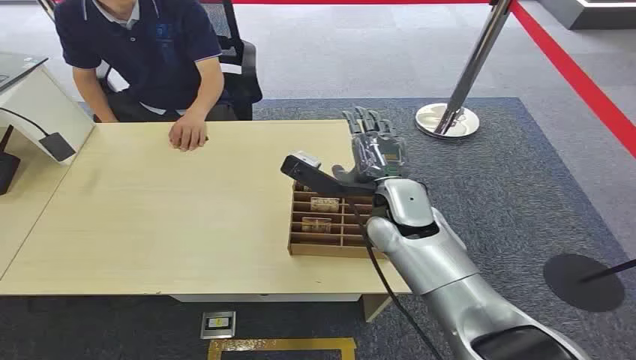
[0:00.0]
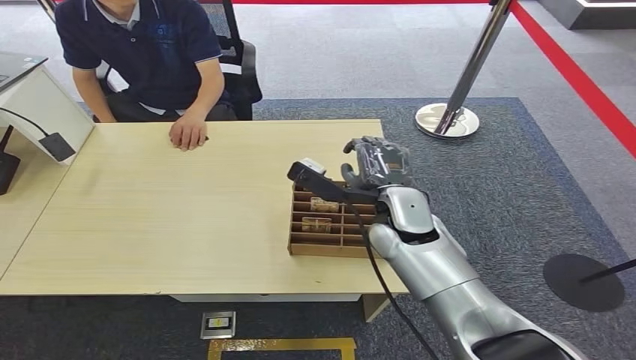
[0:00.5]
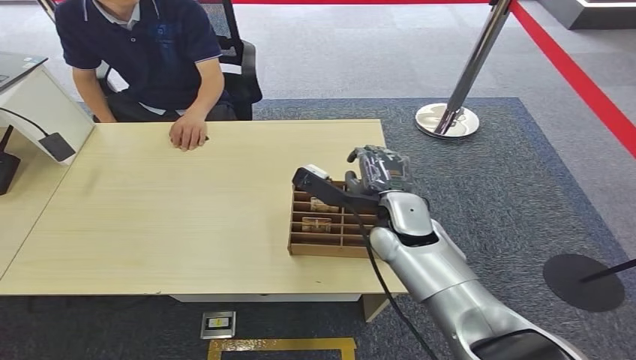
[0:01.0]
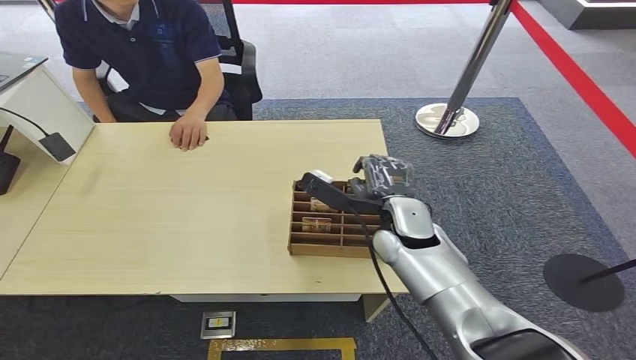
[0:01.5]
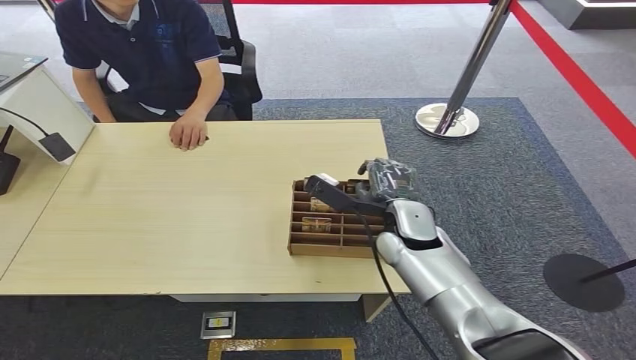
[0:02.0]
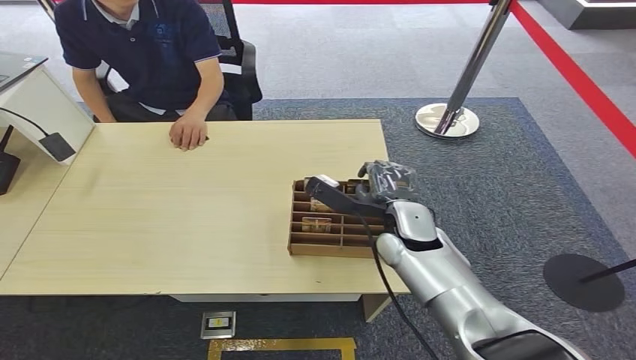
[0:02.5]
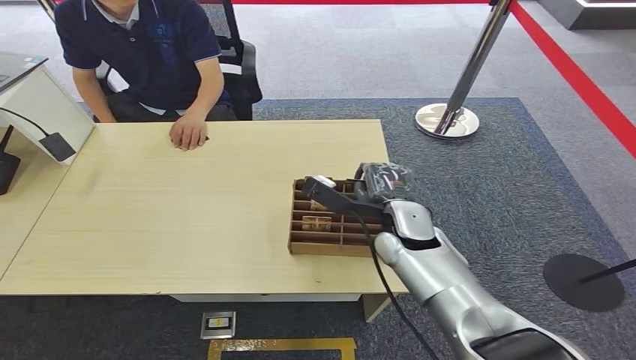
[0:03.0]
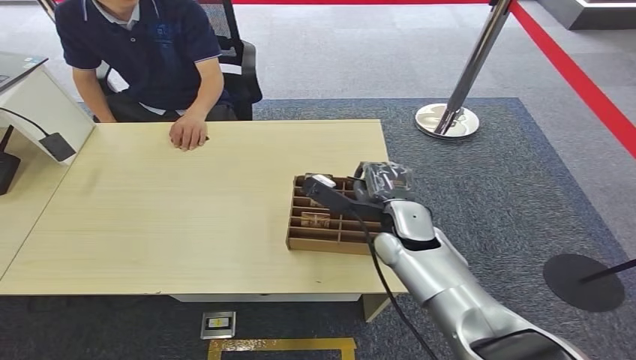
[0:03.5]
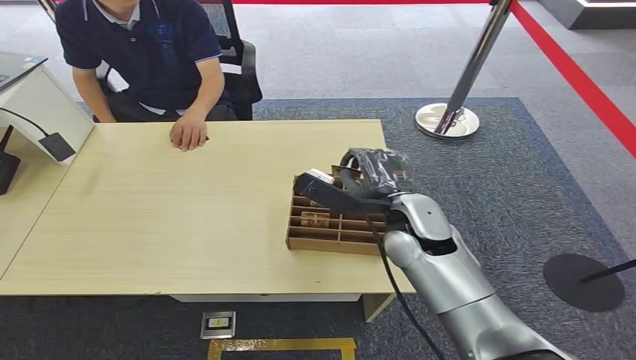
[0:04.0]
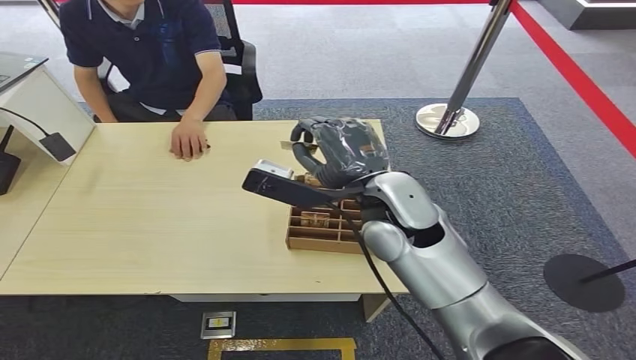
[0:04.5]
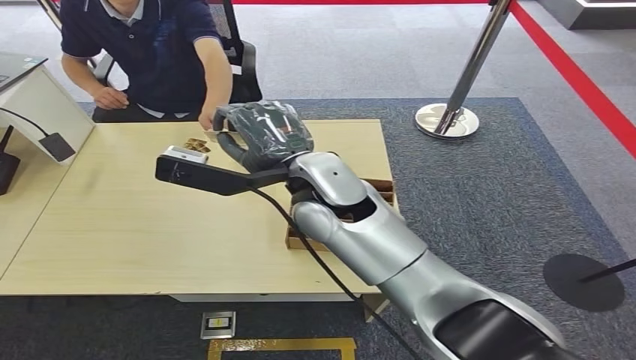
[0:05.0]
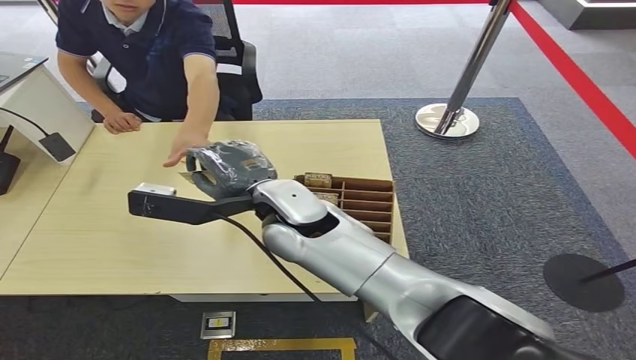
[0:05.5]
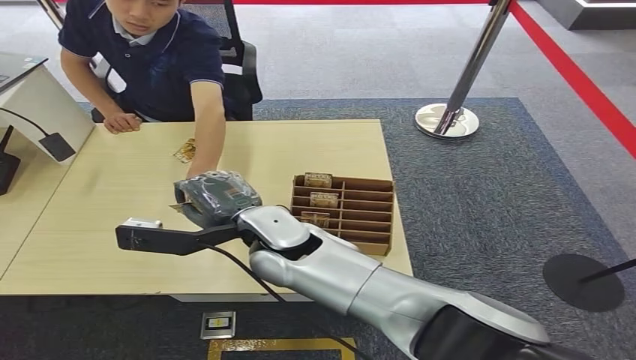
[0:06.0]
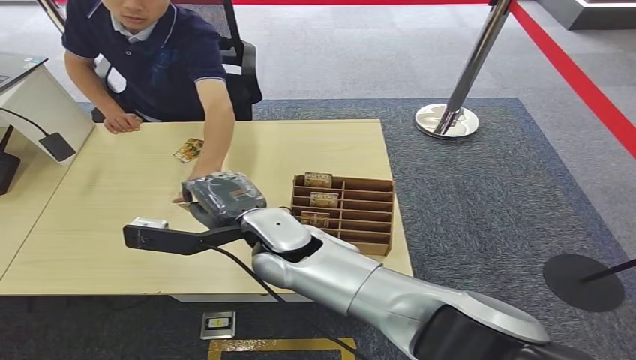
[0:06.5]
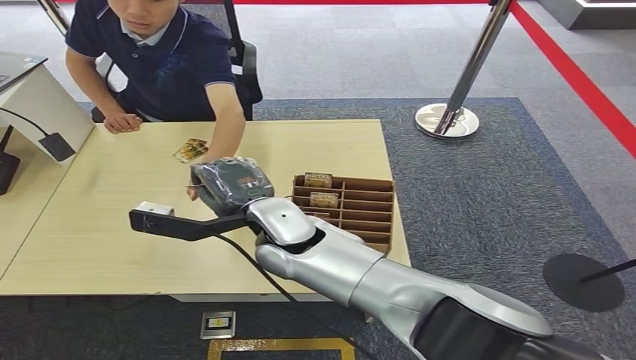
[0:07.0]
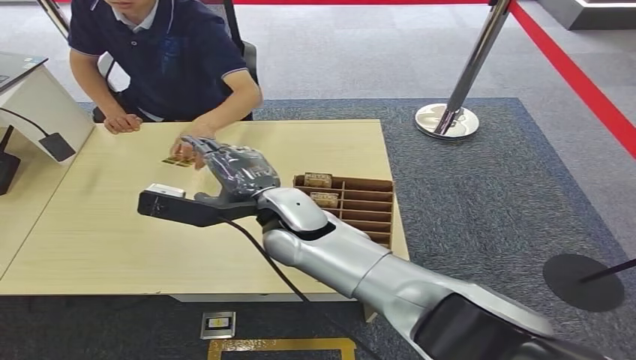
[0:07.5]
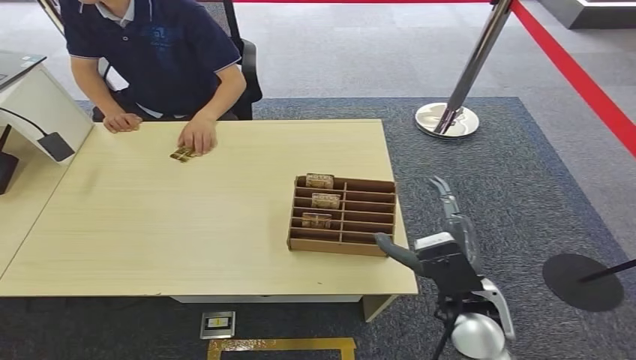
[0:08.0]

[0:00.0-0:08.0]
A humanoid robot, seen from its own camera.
Step, 0:00.0 to 0:04.0: Pick up the key card from the card box.
Step, 0:04.5 to 0:08.0: Hand the key card to the target.
0:02.0 to 0:04.0: There are only small adjustments of the hands.
